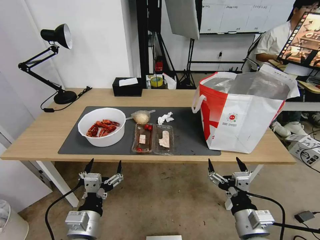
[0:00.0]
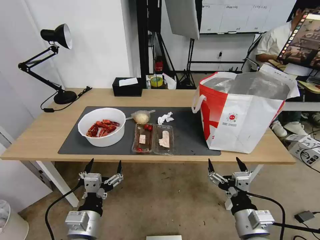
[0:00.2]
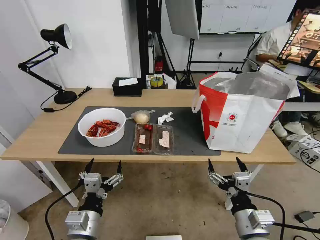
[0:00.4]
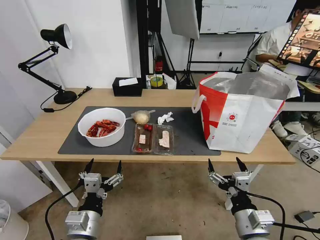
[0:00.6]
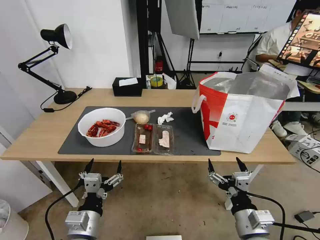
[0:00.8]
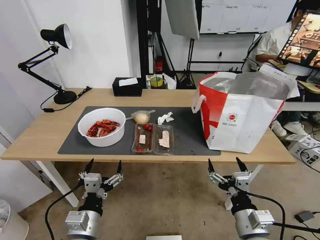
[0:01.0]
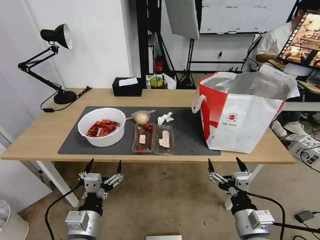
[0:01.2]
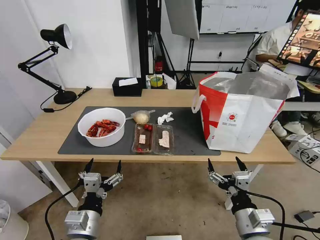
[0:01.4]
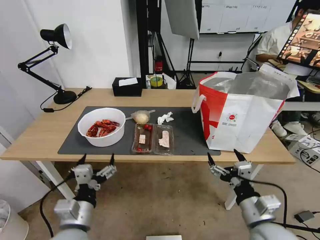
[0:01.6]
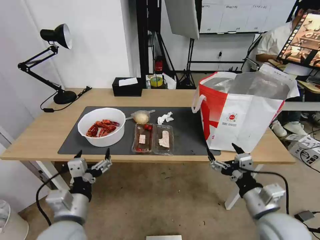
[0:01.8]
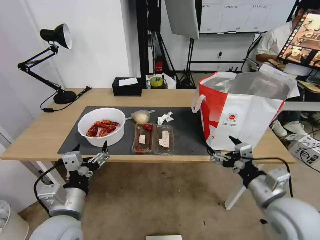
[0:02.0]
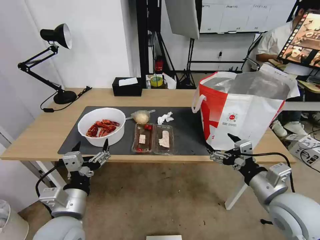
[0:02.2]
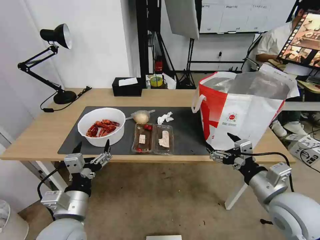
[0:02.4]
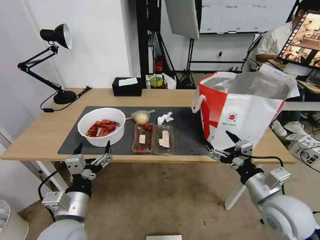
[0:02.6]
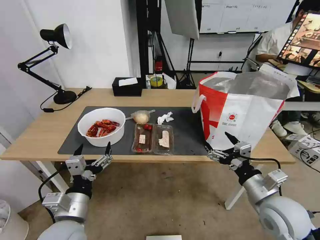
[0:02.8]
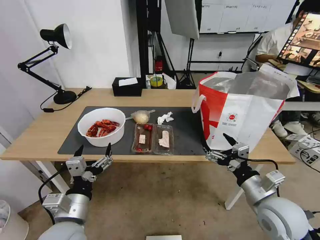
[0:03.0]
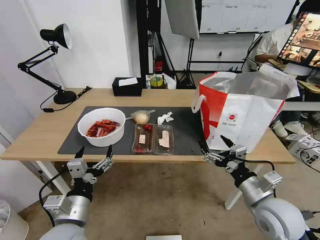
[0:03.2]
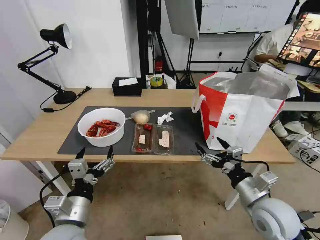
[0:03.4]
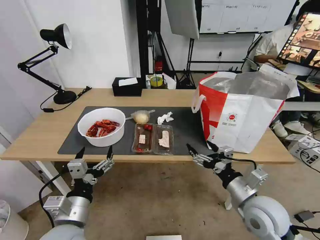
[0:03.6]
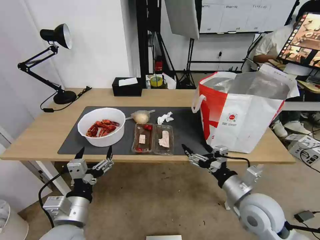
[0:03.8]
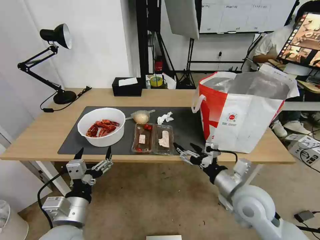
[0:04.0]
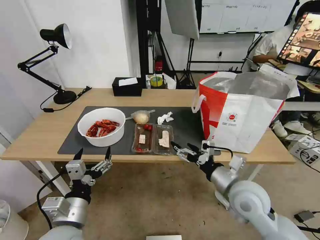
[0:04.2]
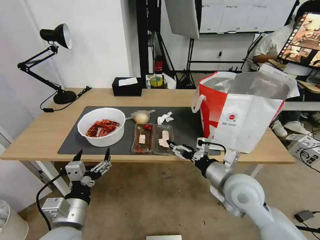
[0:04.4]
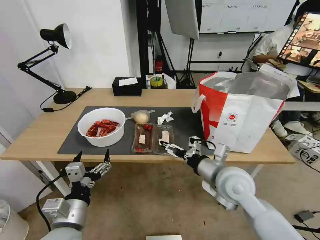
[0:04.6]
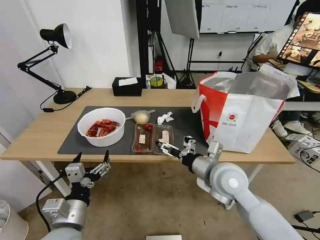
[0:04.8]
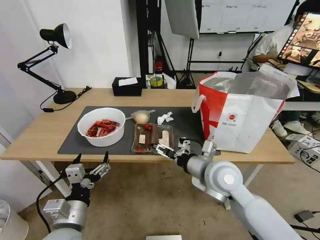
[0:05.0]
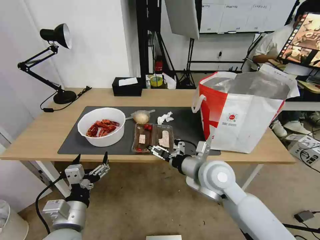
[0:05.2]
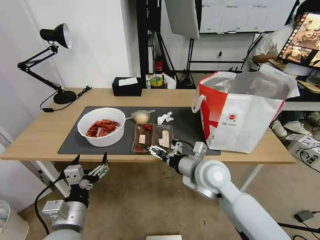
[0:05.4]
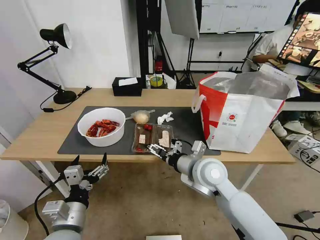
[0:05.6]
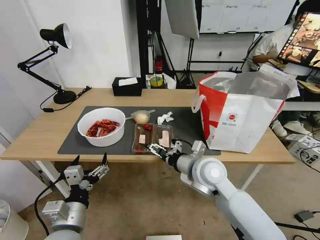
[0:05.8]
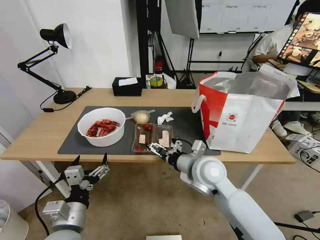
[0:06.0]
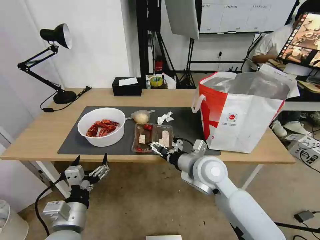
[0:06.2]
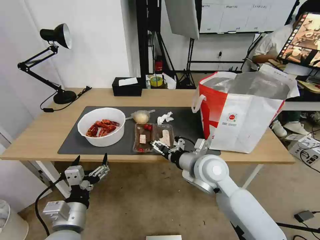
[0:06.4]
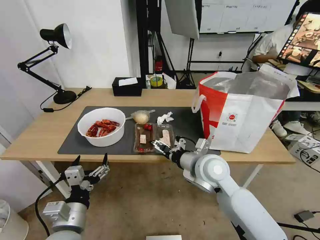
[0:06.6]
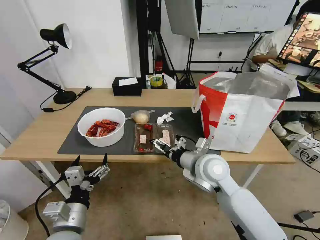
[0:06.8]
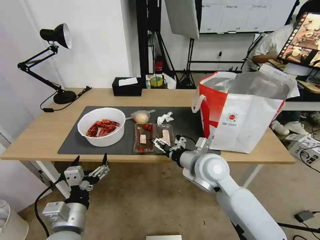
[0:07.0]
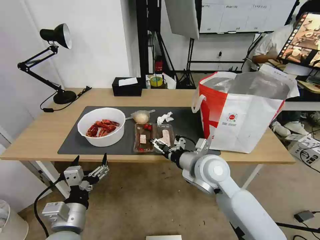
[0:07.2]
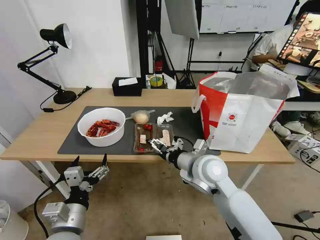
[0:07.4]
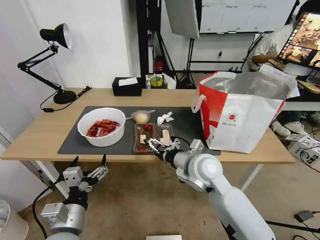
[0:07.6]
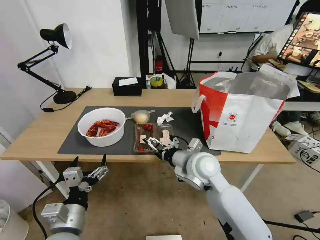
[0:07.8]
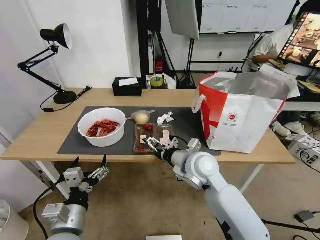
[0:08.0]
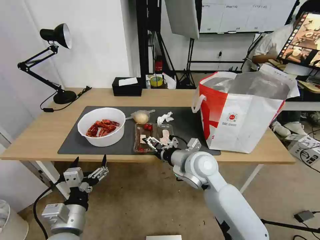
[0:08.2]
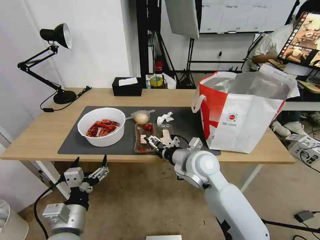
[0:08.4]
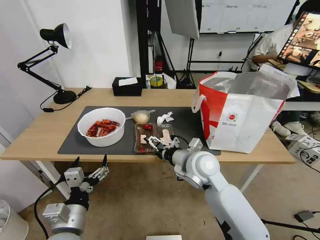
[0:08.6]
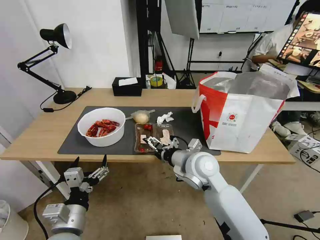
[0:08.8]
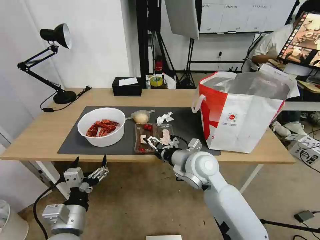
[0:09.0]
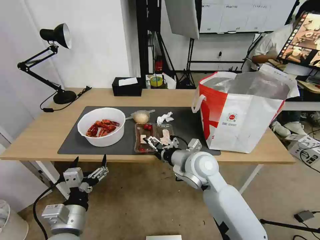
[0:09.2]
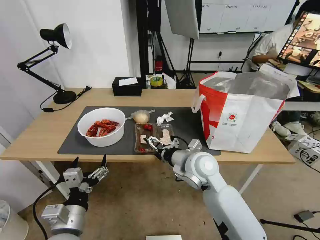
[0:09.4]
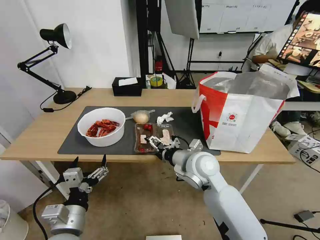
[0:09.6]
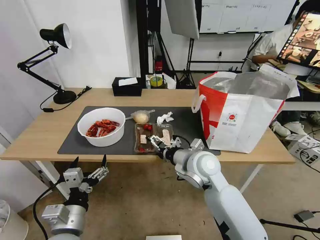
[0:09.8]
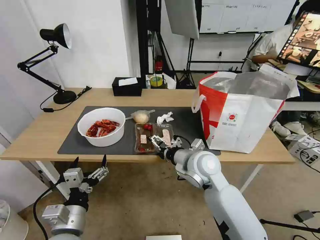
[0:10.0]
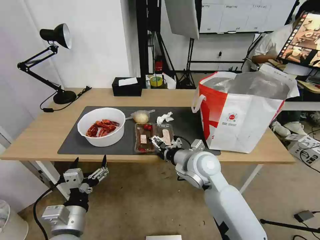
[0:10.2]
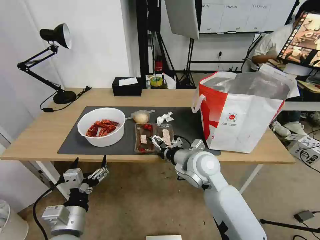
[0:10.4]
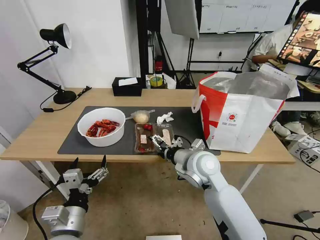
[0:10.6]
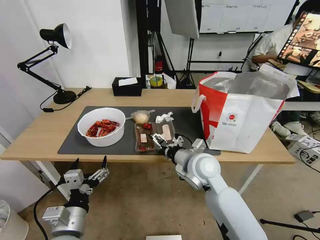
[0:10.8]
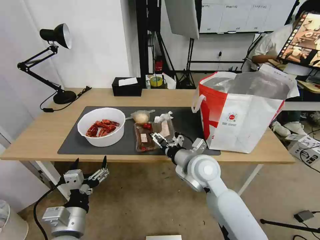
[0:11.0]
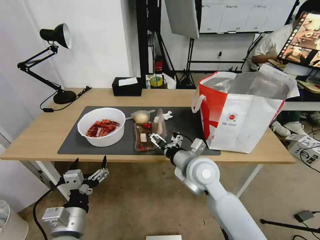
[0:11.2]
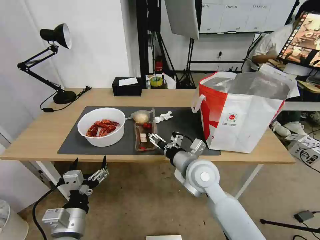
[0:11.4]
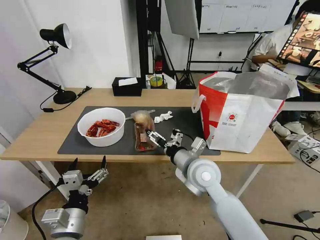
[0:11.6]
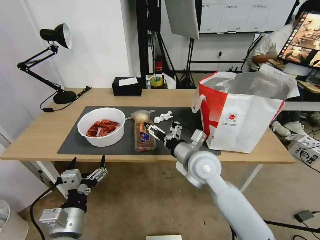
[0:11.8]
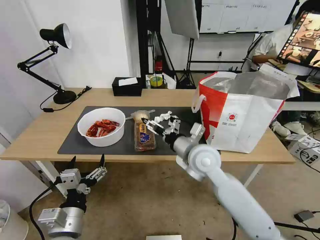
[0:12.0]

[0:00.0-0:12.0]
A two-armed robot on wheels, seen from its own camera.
Task of the whole recording: Pick up the trash from the table and place it into the takeout bag.
0:01.6 to 0:03.0: The right gripper travels forward by roughly 5 cm.
0:03.0 to 0:04.4: The right gripper travels to the left and forward by some 10 cm.
0:04.4 to 0:06.0: The right gripper goes about 10 cm to the left and forward.
0:06.0 to 0:09.0: The grippers make only small movements.
0:09.0 to 0:10.4: Both grippers stay about where they are.

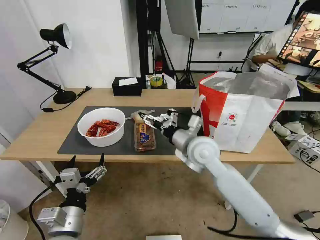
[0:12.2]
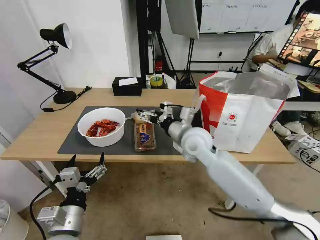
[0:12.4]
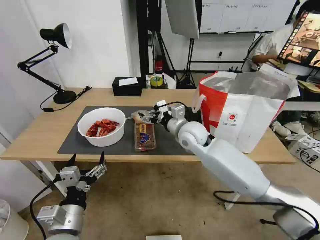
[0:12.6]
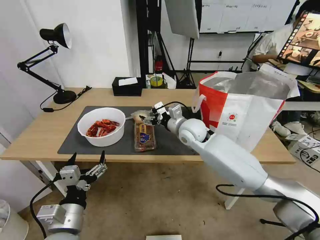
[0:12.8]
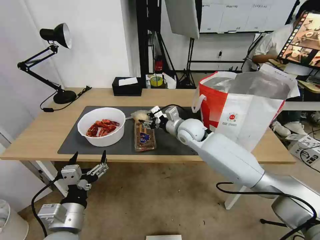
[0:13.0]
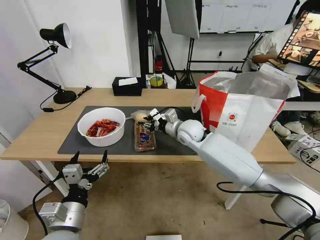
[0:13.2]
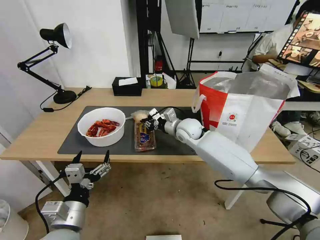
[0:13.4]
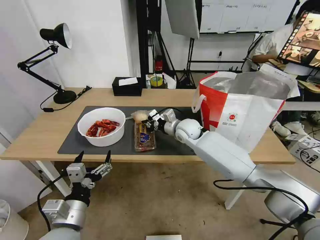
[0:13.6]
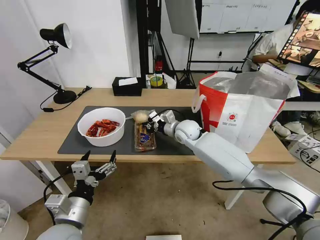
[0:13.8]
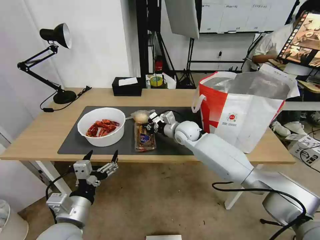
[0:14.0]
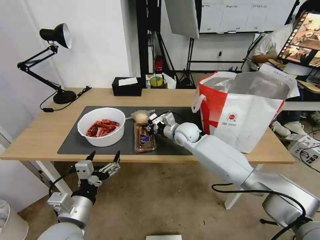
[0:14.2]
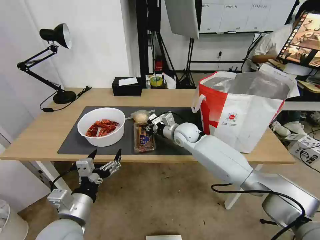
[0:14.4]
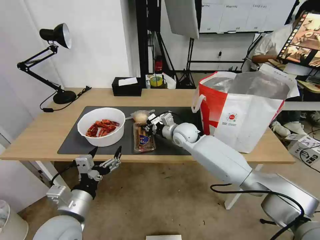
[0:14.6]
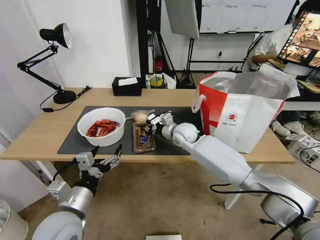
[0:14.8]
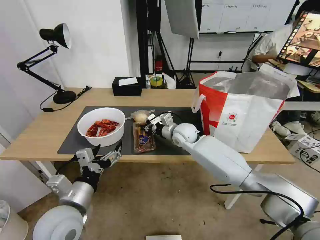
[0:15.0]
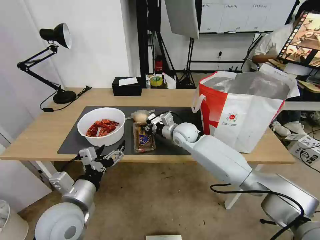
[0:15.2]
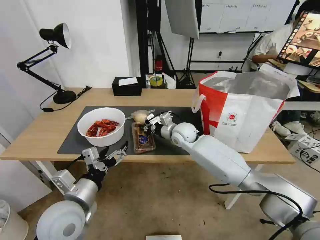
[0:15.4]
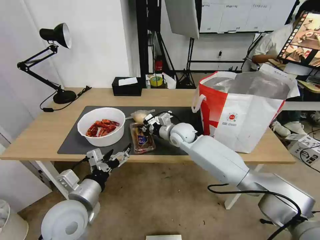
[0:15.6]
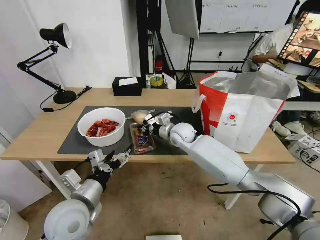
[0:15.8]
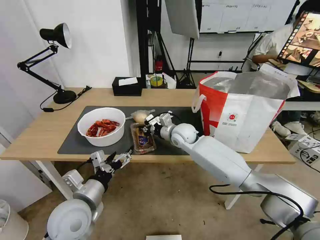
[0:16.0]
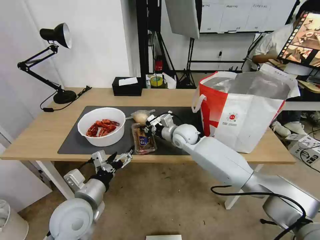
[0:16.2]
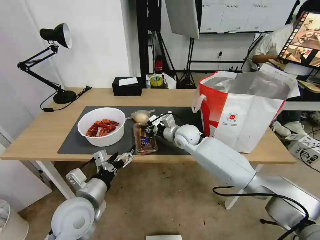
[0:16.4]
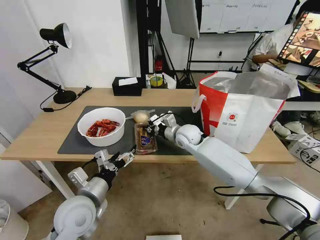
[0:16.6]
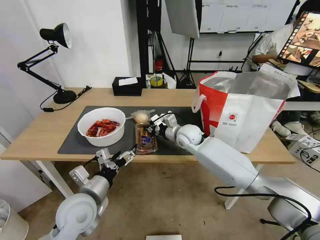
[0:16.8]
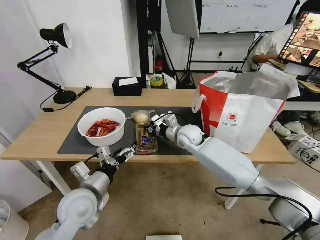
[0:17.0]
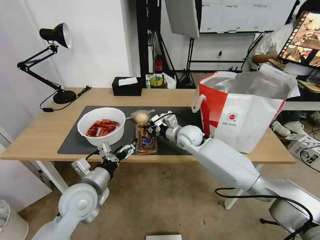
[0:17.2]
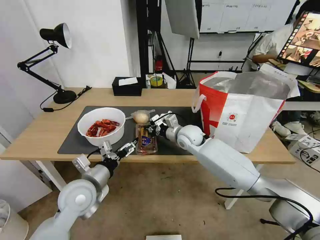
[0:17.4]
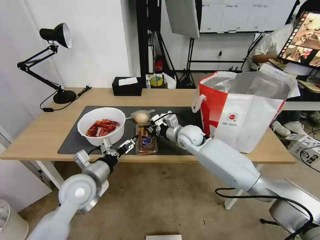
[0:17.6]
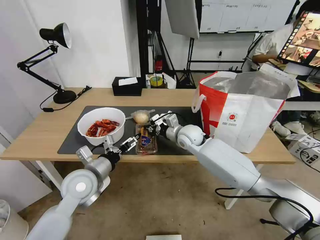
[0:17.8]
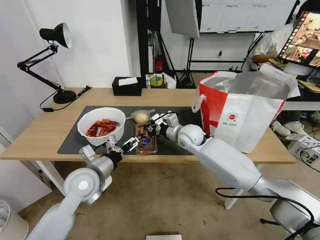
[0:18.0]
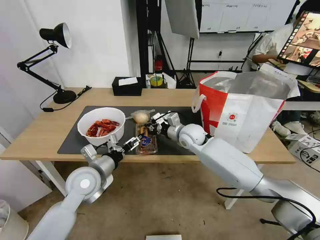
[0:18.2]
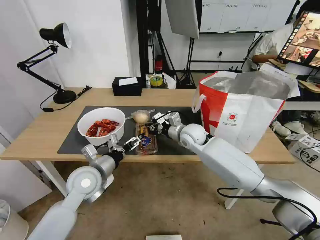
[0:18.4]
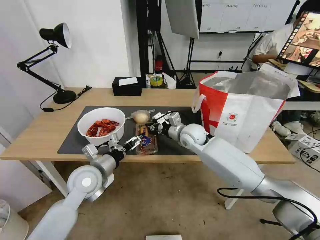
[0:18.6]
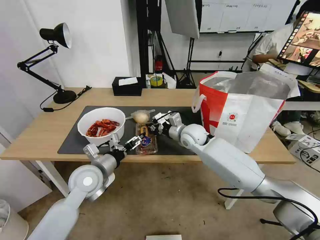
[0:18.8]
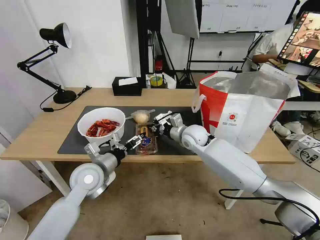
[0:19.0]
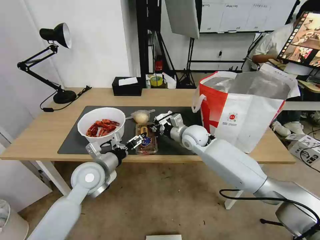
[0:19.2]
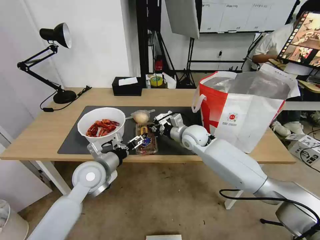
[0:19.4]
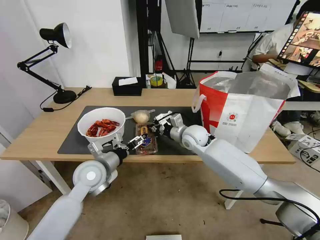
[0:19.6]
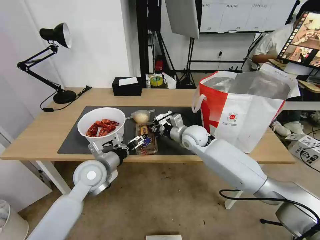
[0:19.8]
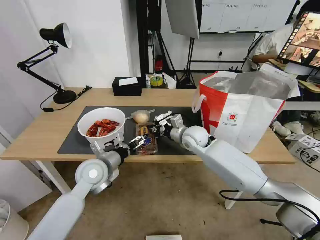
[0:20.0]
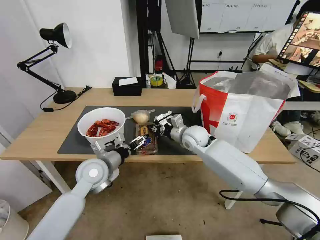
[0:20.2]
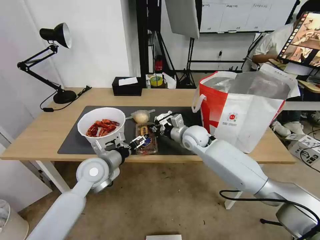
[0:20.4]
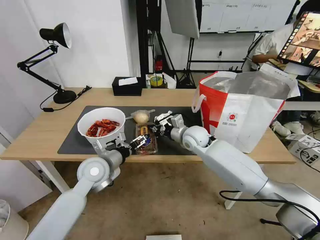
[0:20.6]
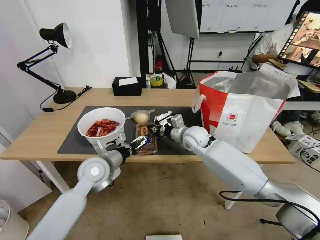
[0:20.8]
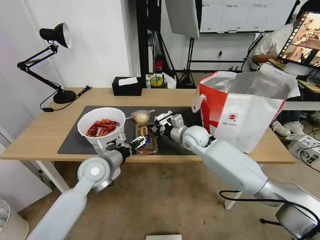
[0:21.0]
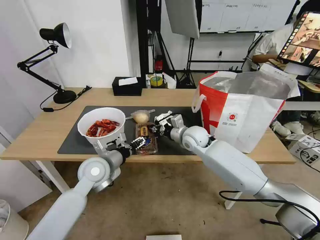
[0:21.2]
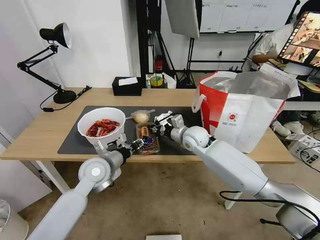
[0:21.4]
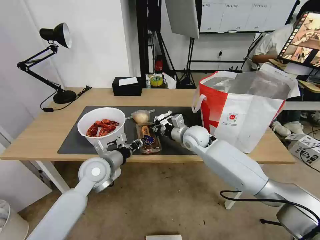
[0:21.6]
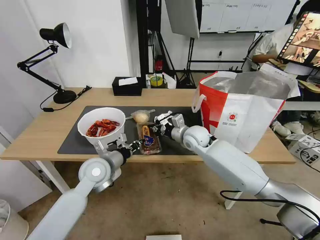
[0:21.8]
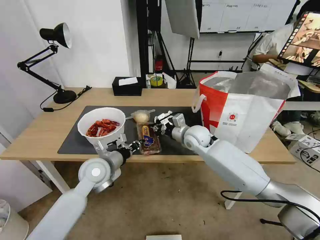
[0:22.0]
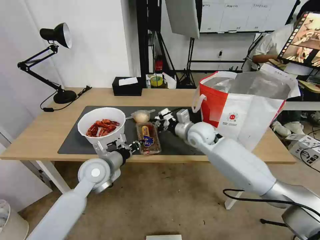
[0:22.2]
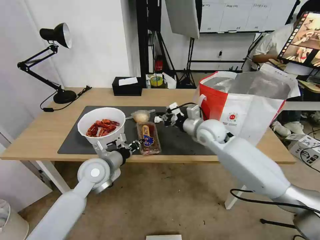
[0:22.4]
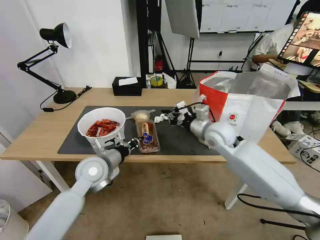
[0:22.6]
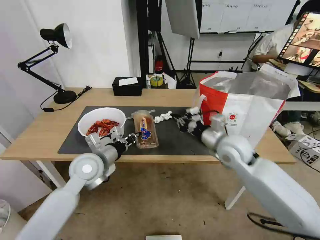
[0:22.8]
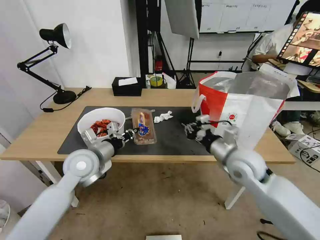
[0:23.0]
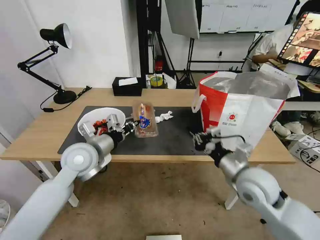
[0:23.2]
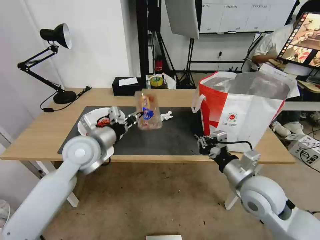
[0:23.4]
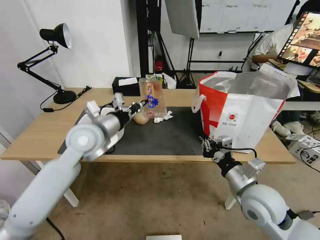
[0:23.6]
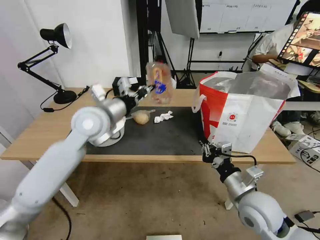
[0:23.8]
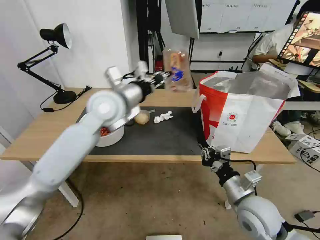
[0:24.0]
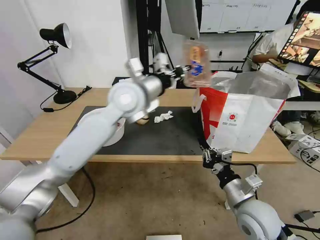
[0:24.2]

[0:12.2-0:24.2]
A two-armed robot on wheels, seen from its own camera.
Task of the whole recording: Pick up the trash from the table and place it into the takeout bag.
0:12.2 to 0:13.8: The right gripper goes roughly 15 cm forward and downward, and closes.
0:13.8 to 0:15.2: The left gripper ends up some 5 cm from where it was.
0:15.2 to 0:16.6: The grippers stay close to where they were, moving slightly.
0:16.6 to 0:18.2: The left gripper goes about 10 cm forward.
0:18.2 to 0:19.8: There are only small adjustments of the grippers.
0:19.8 to 0:21.2: The left gripper closes.
0:21.2 to 0:22.6: The left gripper closes up. Meanwhile the right gripper goes about 10 cm to the right and upward.
0:22.6 to 0:24.2: The left gripper moves upward, to the right and forward, approximately 25 cm. Meanwhile the right gripper is displaced backward by approximately 20 cm.
